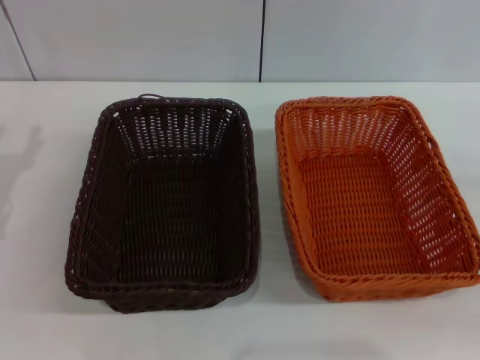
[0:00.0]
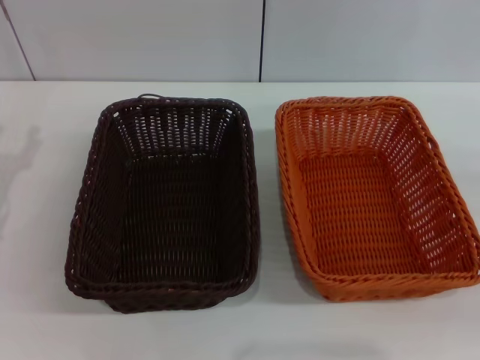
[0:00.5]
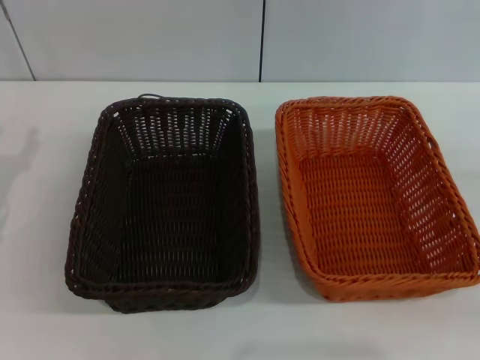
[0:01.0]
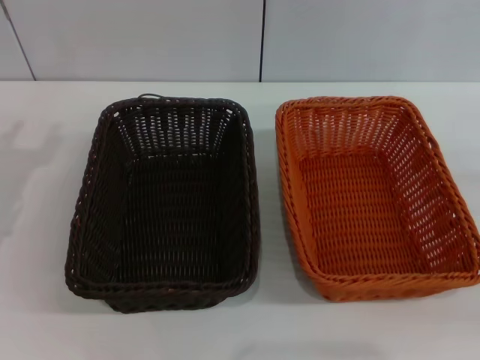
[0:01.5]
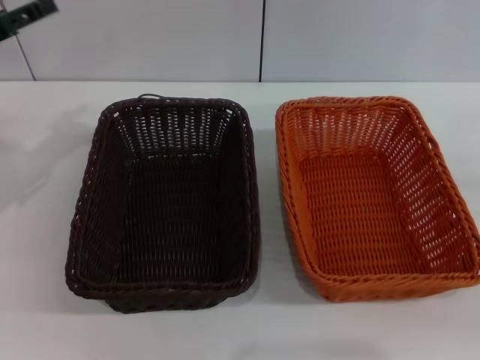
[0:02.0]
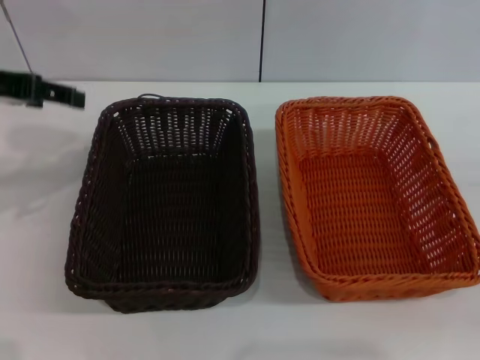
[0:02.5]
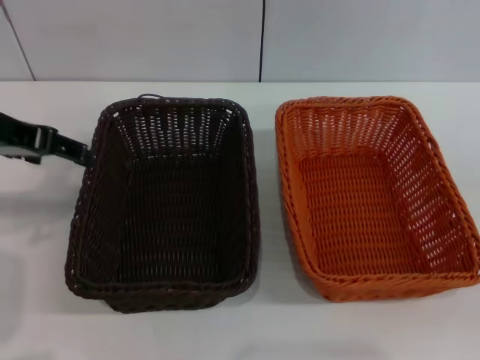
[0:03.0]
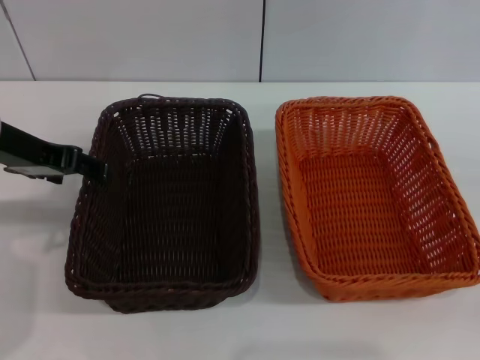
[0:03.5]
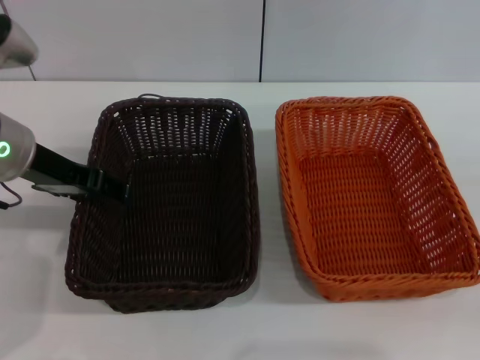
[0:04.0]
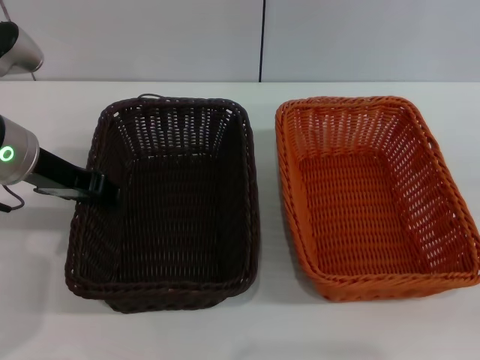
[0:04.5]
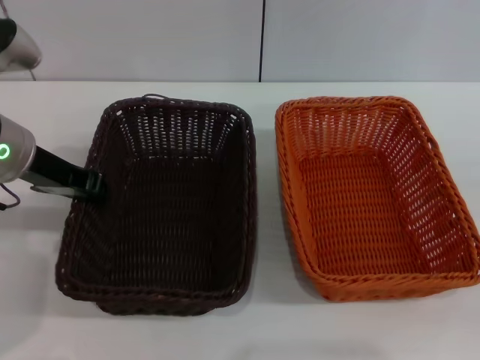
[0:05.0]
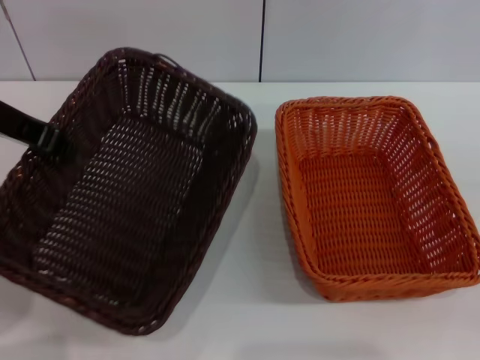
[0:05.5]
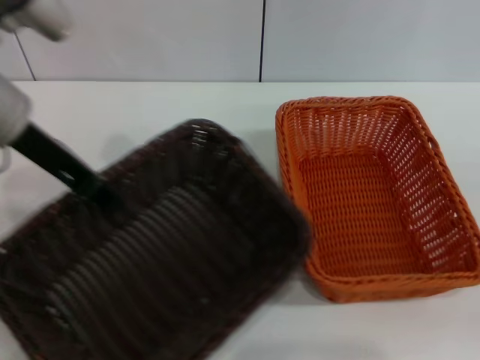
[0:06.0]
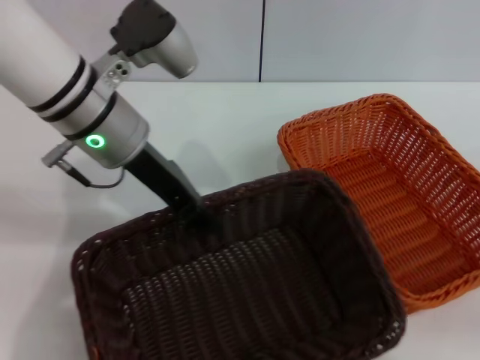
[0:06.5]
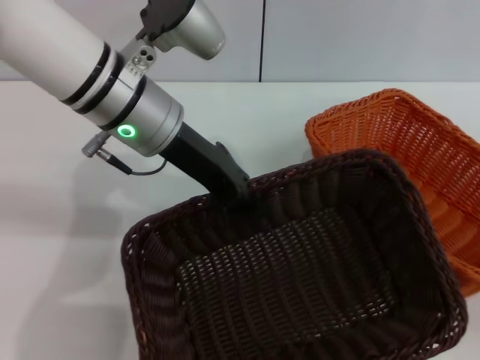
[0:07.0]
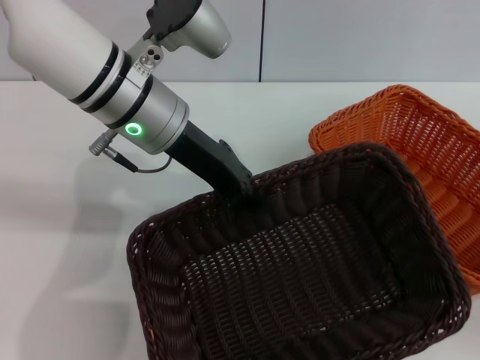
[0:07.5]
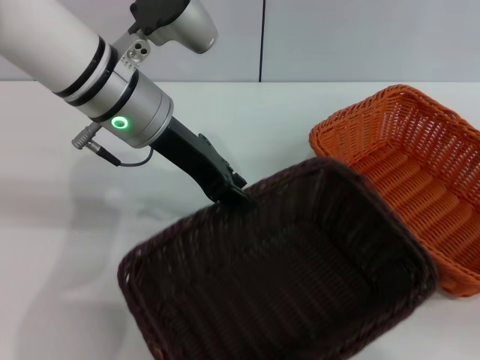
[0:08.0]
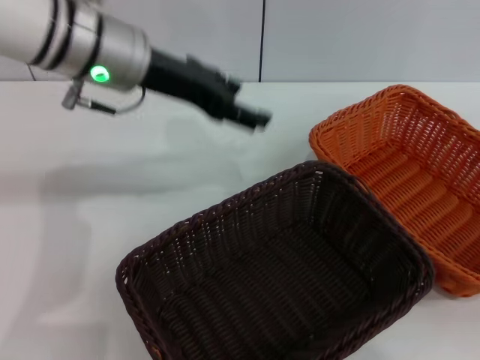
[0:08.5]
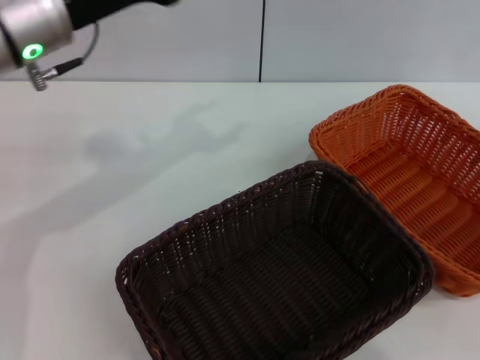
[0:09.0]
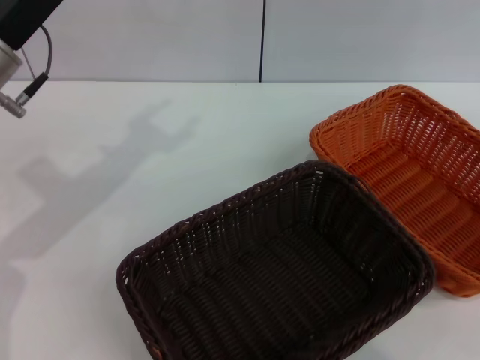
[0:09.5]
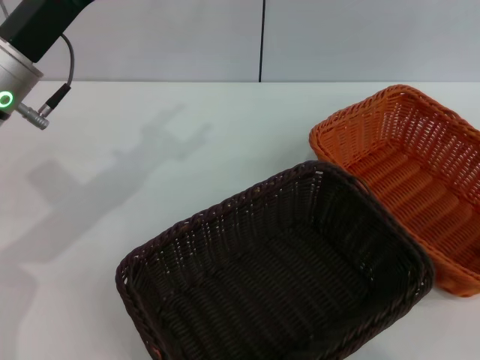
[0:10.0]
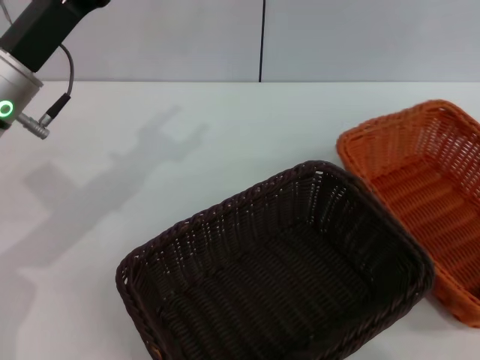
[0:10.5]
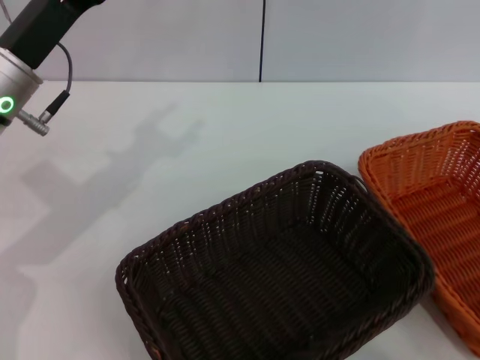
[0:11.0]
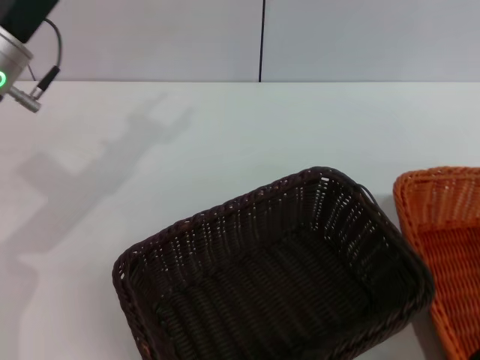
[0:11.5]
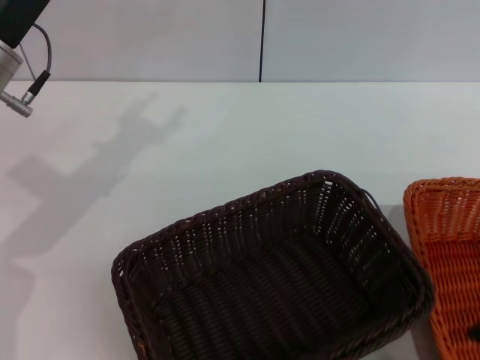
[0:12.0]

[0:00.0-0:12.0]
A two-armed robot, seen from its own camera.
Step, 0:00.0 to 0:05.0: Pick up the dark basket with the left gripper.
Step, 0:05.5 to 0:08.0: Place the dark basket in the center of view with the left gripper.
0:00.0 to 0:02.0: The left gripper shifts roughly 10 cm upward and forward.
0:02.0 to 0:04.0: The left gripper travels to the right by some 10 cm.
0:04.0 to 0:06.0: The left gripper travels upward by roughly 5 cm, and closes.
0:06.0 to 0:08.0: The left gripper travels to the right by about 10 cm.
0:08.0 to 0:10.0: The left gripper goes about 10 cm to the left, and opens its fingers; the right gripper goes roughly 10 cm upward.
0:10.0 to 0:12.0: The right gripper travels to the left by some 5 cm.

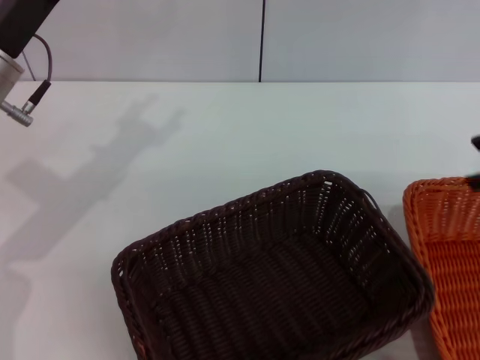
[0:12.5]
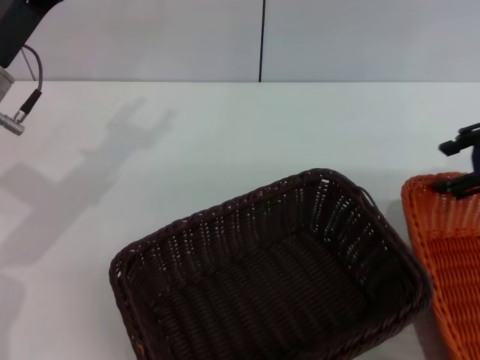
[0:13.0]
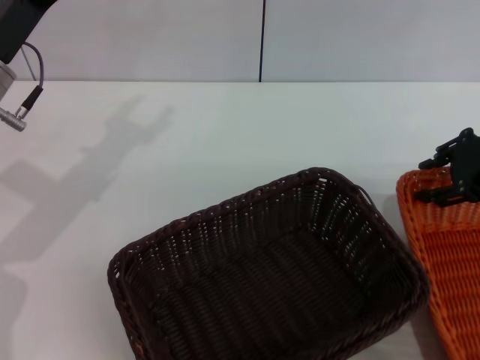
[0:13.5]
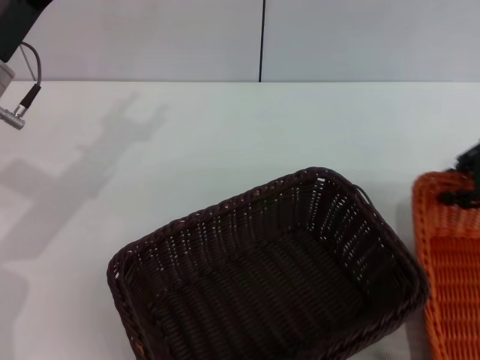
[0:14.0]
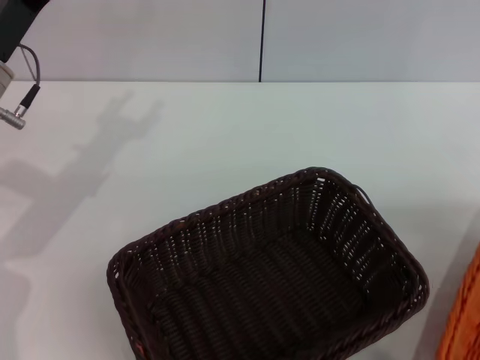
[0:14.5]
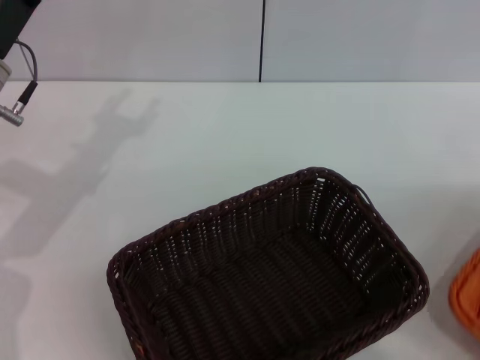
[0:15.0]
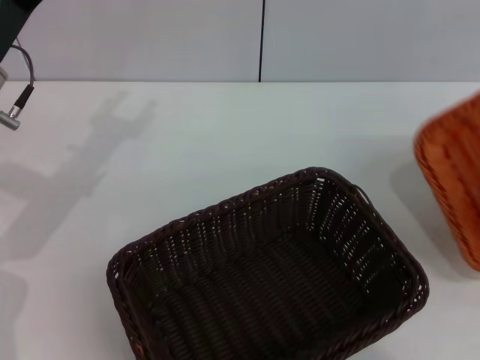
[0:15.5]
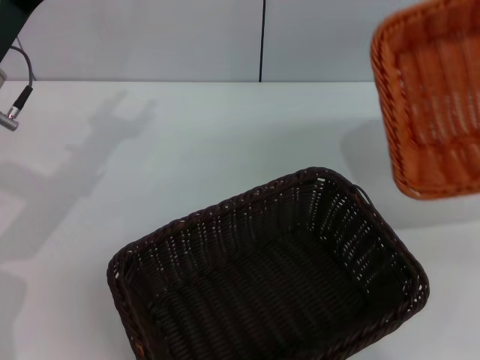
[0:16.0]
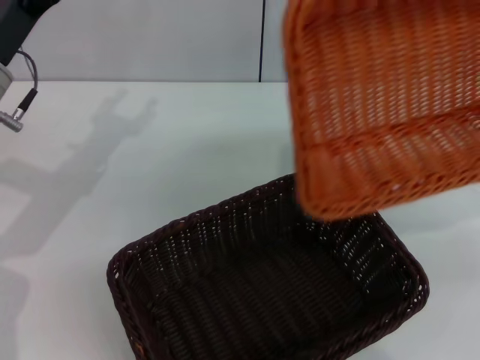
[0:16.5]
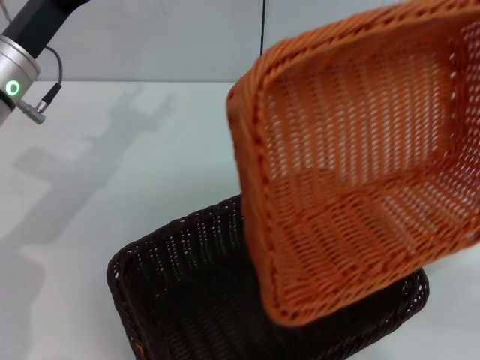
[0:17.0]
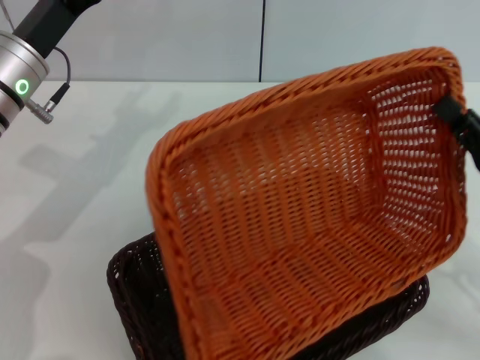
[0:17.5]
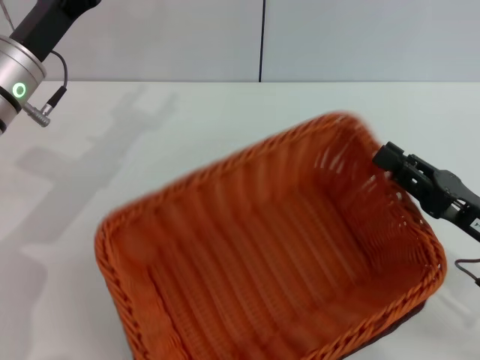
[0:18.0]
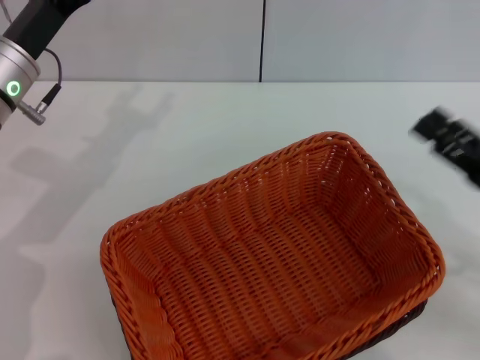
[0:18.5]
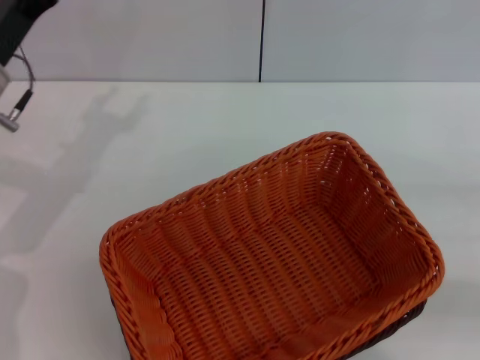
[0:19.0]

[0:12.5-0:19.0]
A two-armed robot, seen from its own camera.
Step, 0:12.5 to 0:14.5: Pick up the light basket with the right gripper.
Step, 0:15.0 to 0:18.0: Place the light basket on the dark basket with the right gripper.
0:12.5 to 0:14.5: The right gripper goes roughly 5 cm to the right, and closes up.
0:14.5 to 0:17.0: The right gripper shifts some 15 cm backward, downward and to the left.
0:17.0 to 0:19.0: The right gripper goes about 10 cm to the right, and opens its fingers.
